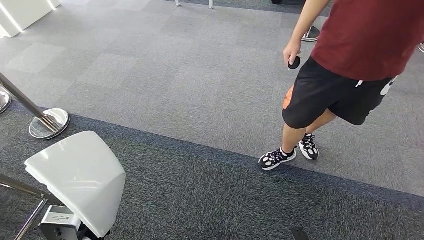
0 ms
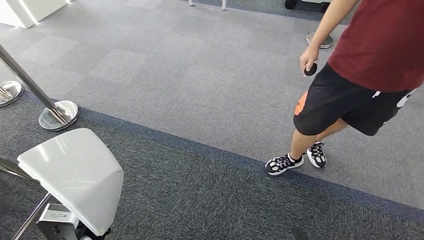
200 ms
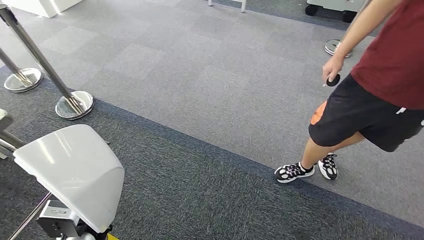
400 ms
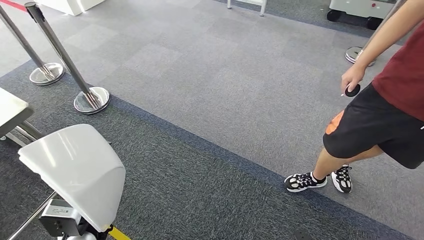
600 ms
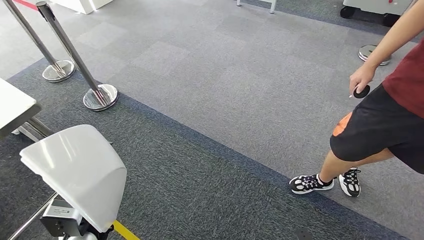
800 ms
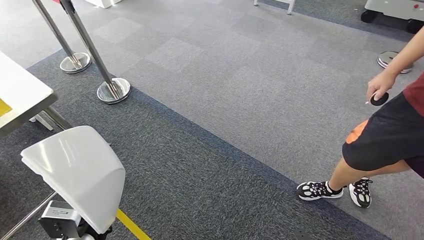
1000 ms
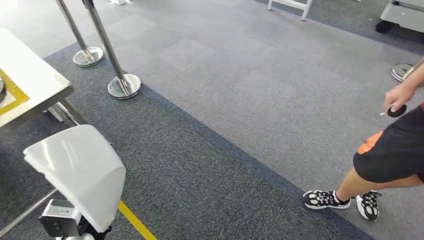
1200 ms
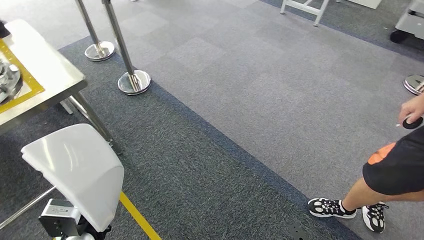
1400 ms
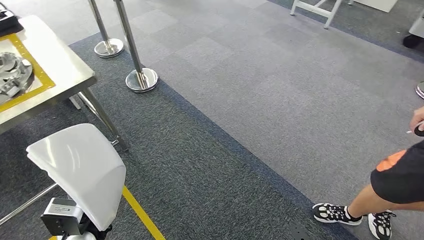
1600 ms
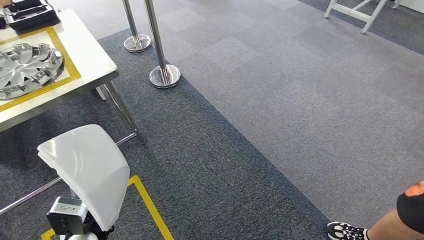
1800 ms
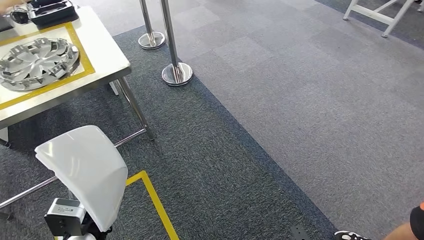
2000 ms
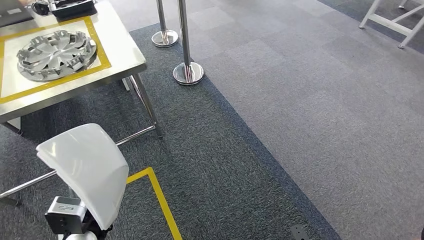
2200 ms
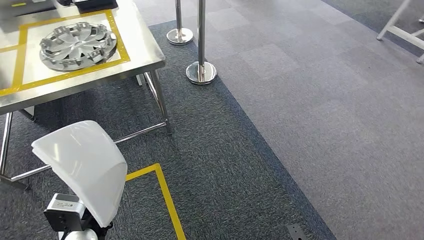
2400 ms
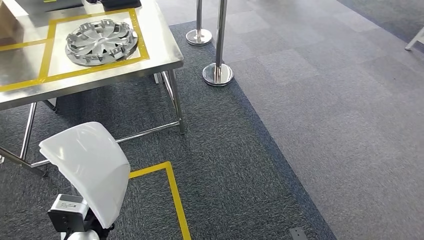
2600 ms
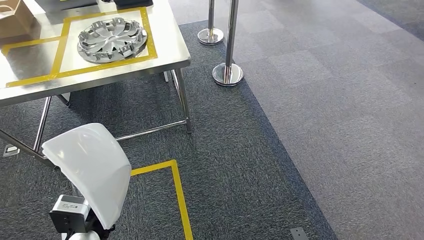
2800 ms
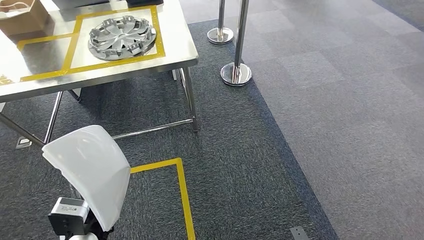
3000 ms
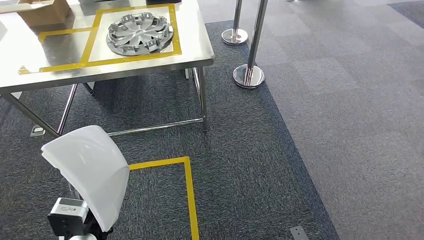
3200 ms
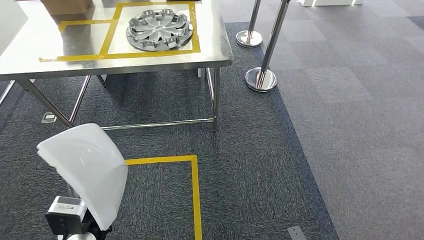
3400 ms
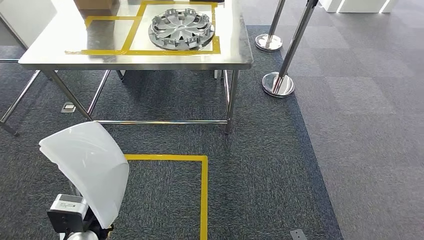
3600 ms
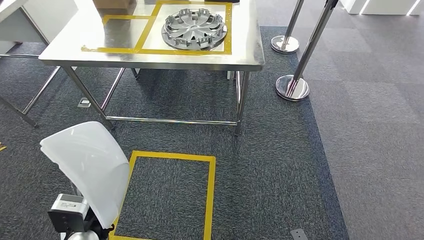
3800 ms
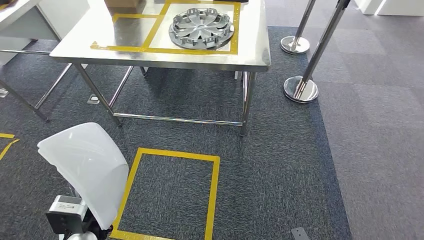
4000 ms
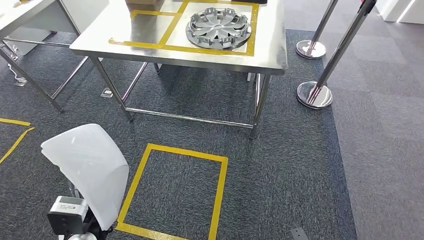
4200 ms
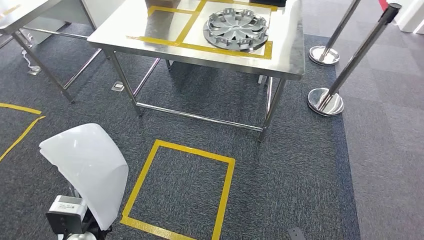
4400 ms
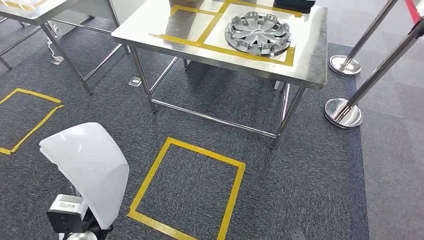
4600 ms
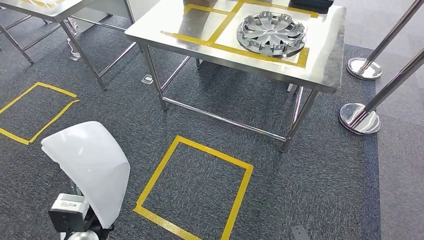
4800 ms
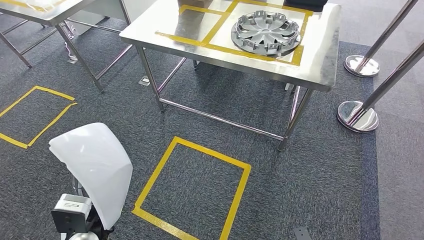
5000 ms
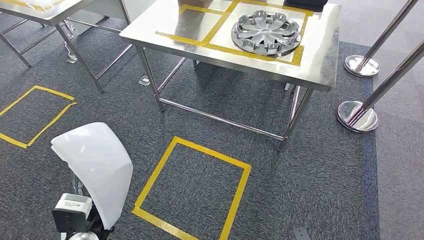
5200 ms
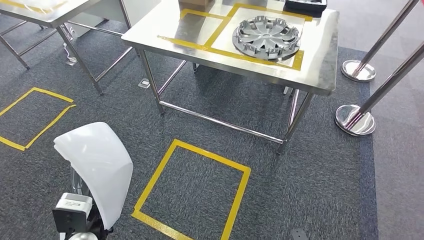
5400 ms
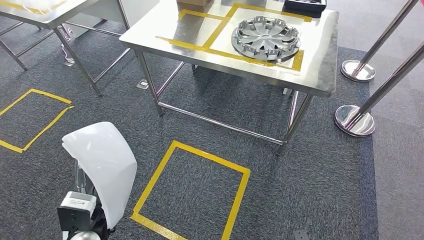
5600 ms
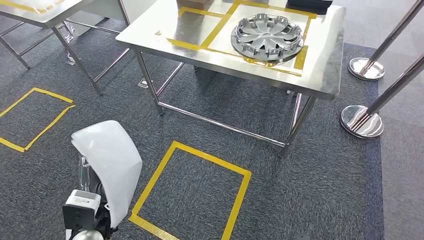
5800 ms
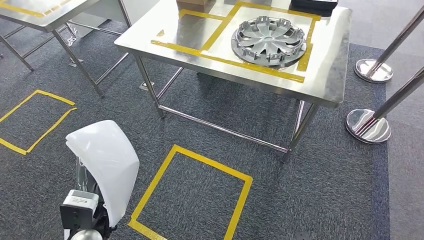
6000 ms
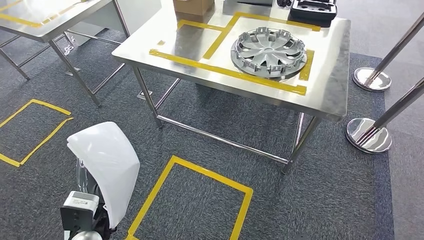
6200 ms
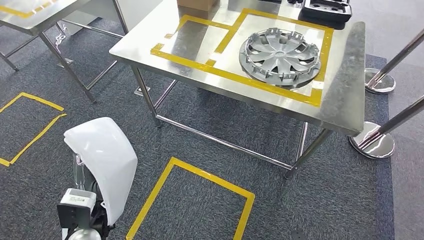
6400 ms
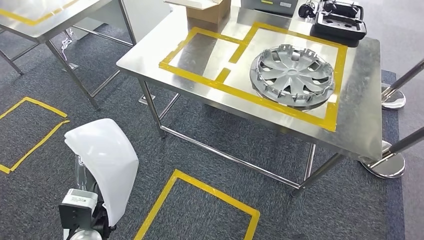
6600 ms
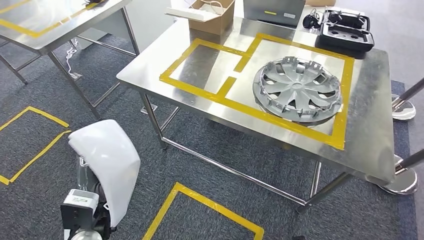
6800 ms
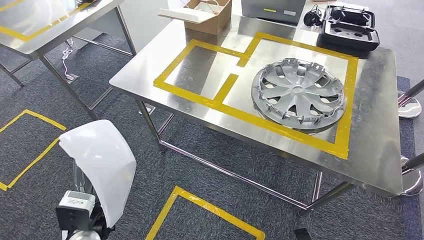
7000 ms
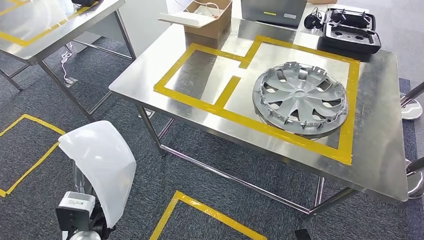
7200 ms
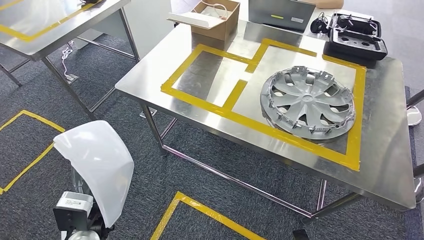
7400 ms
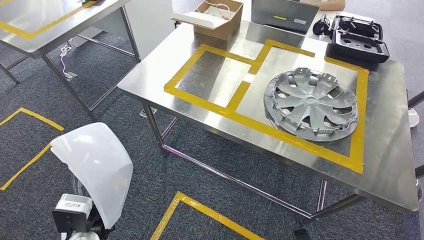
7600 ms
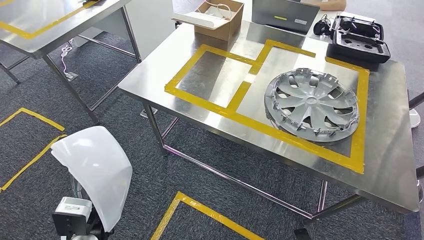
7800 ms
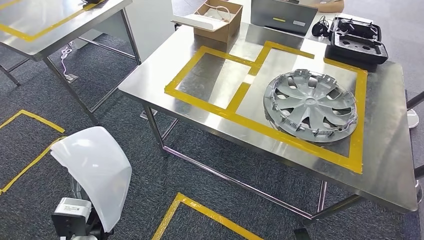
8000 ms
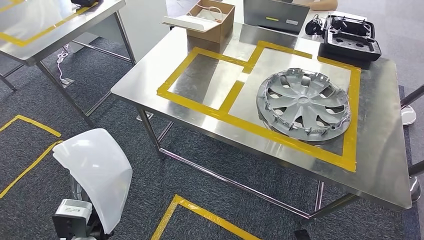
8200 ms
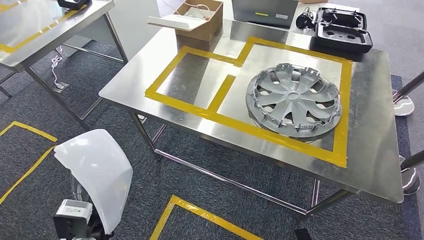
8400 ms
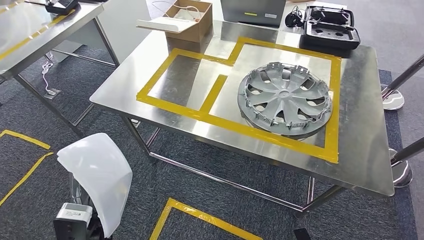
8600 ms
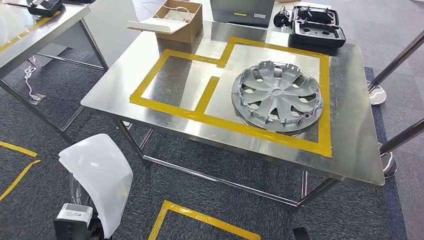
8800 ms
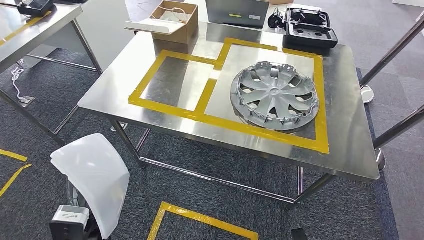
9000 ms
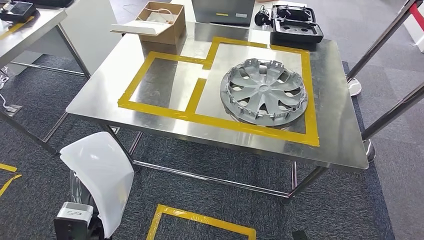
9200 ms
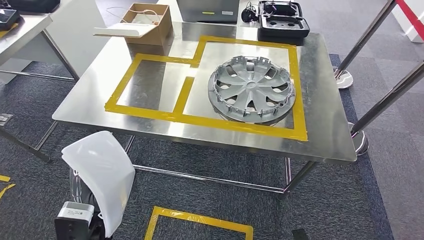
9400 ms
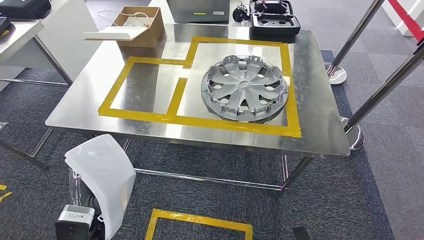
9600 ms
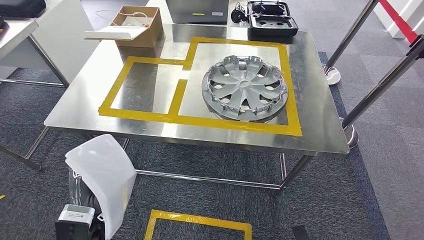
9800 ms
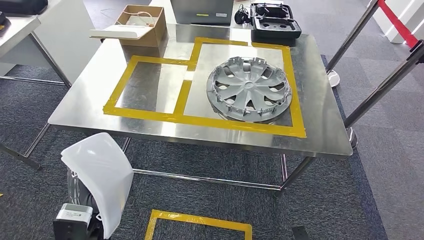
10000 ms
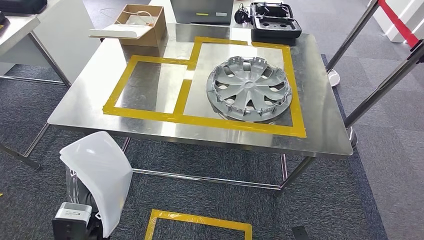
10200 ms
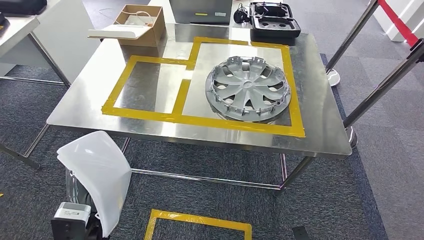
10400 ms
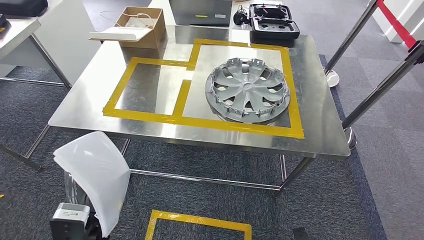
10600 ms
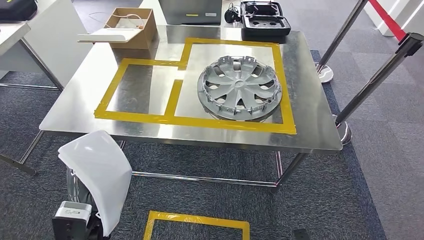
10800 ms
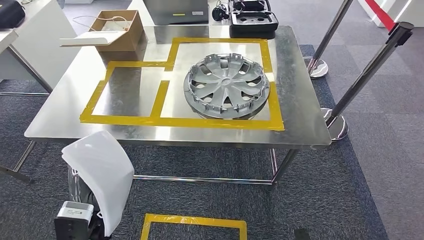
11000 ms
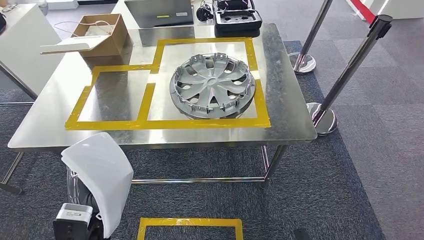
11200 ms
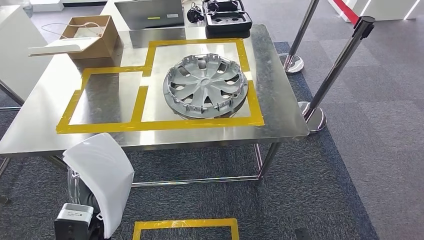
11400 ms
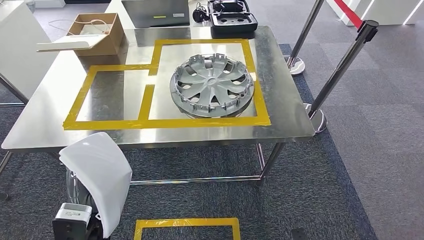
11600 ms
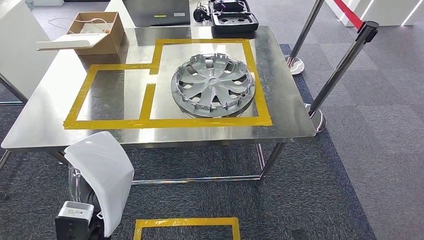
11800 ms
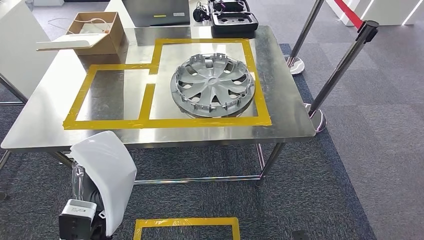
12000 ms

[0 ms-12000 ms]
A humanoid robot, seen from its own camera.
Step, 0 ms to 11000 ms: Move the large material to the workbench.

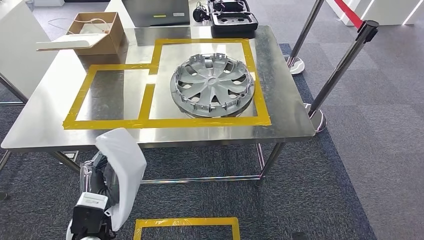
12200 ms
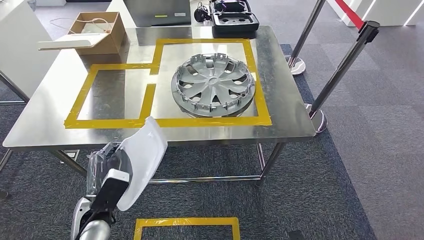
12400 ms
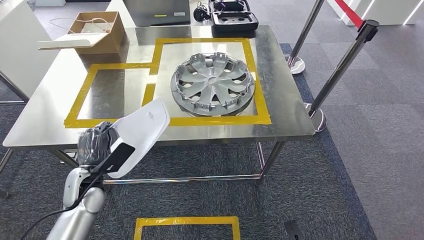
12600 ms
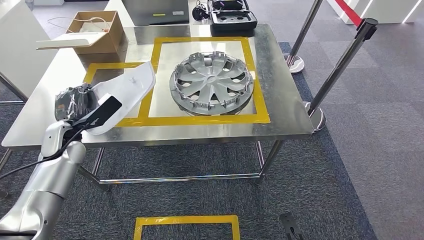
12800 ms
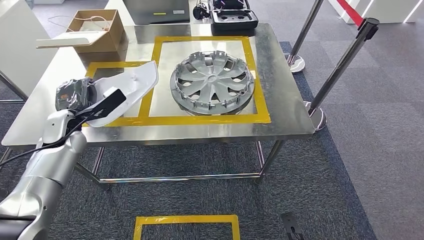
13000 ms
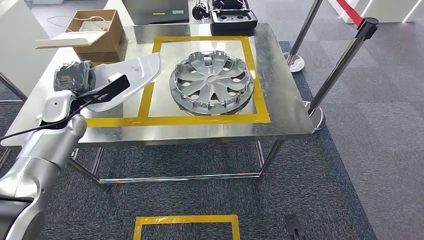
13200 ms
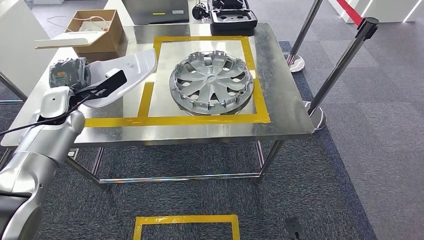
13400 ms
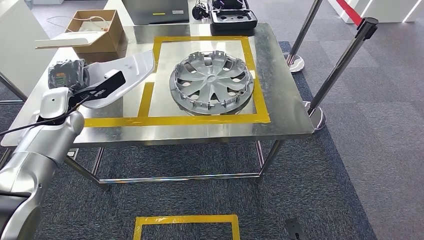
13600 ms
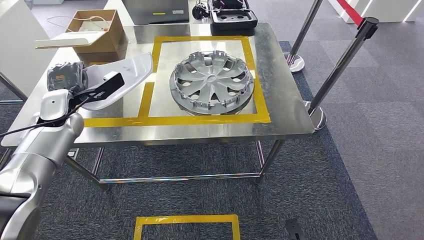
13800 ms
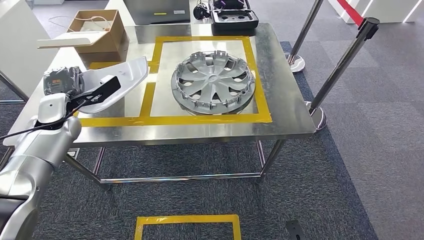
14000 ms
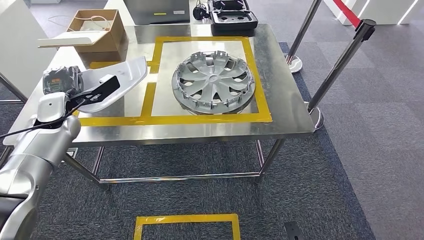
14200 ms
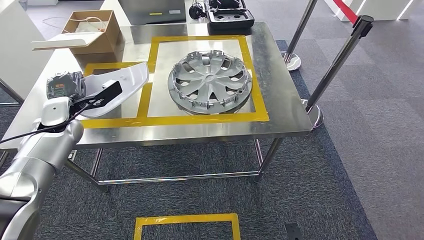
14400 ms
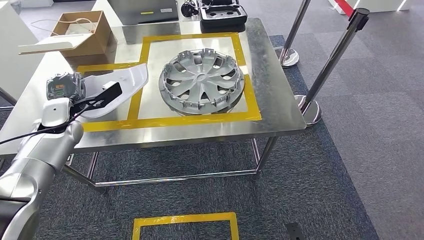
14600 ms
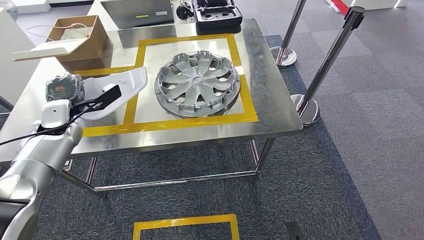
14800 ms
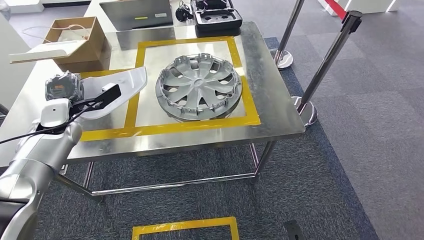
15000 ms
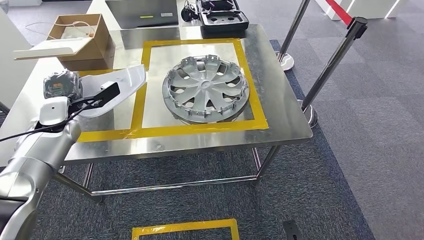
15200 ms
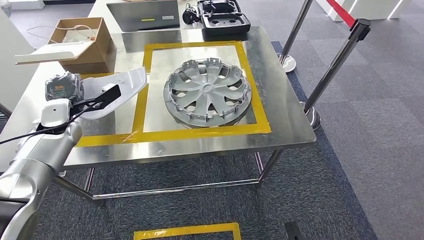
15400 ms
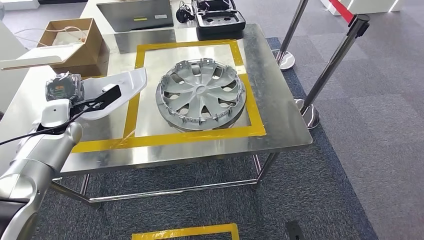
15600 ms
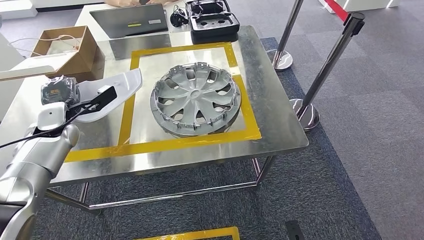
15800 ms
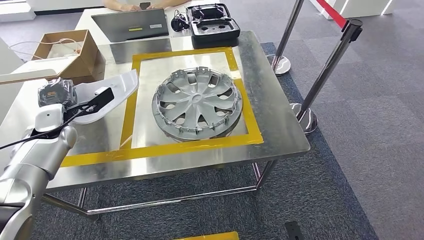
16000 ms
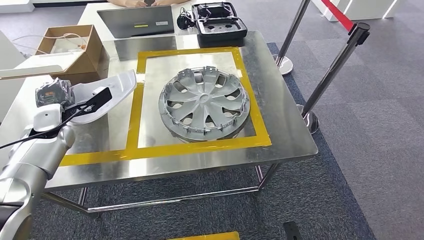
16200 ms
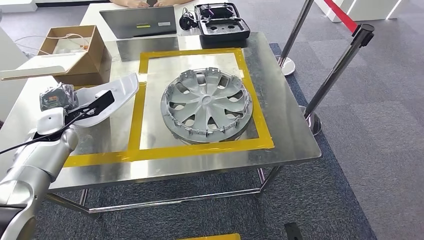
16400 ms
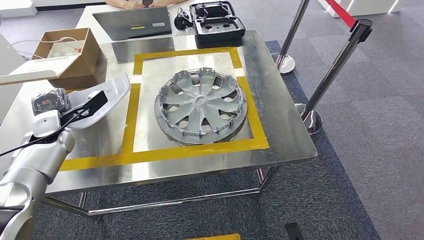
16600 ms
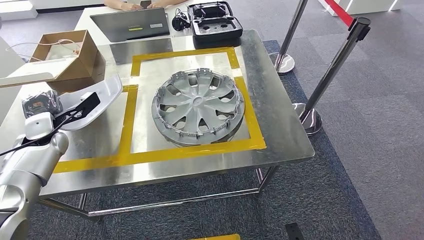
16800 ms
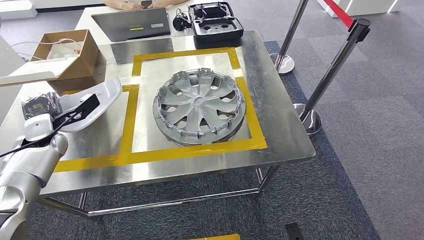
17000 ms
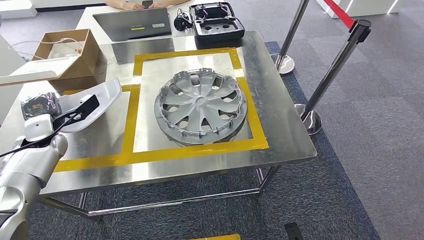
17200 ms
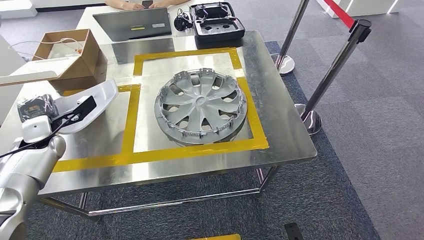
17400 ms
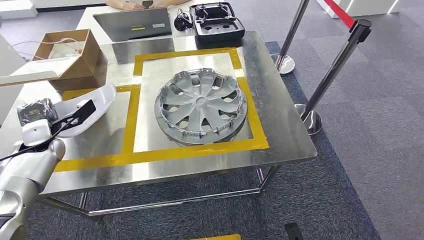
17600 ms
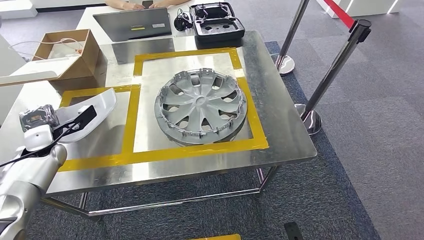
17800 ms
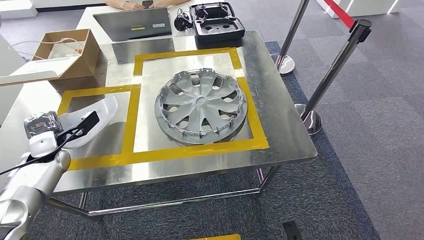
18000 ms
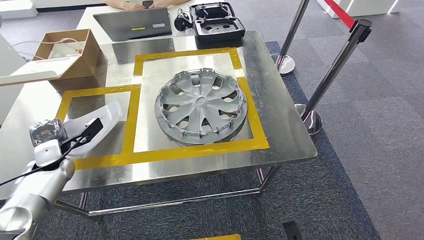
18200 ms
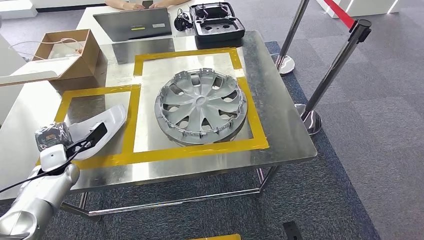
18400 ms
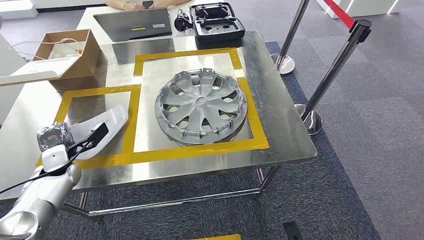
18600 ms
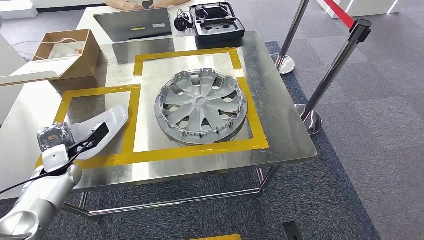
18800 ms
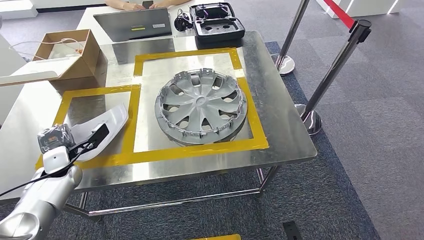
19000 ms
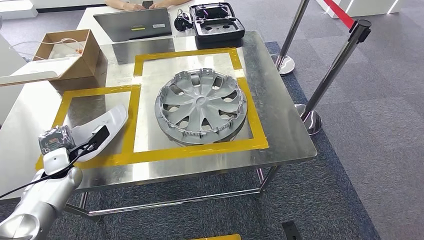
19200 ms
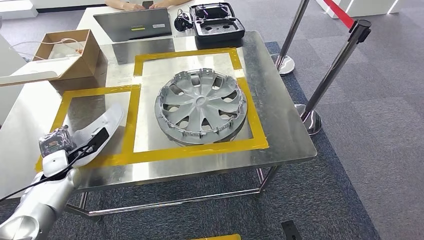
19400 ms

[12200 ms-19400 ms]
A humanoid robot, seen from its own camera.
16600 ms to 18000 ms: The left hand shifts by about 5 cm.
18000 ms to 19400 ms: The left hand shifts roughly 5 cm downward.
